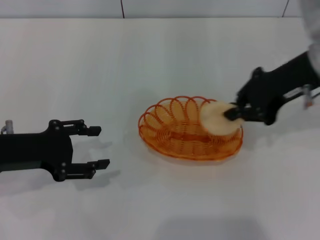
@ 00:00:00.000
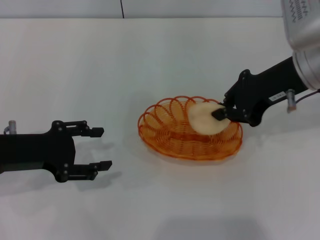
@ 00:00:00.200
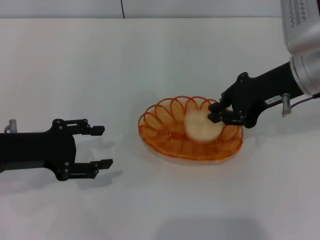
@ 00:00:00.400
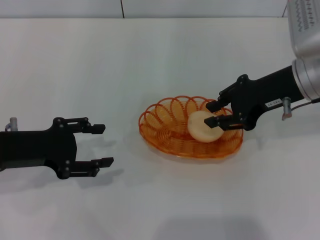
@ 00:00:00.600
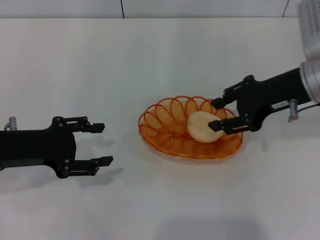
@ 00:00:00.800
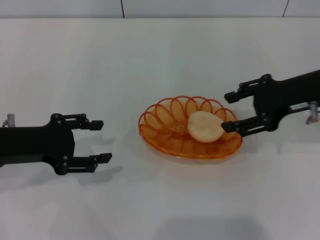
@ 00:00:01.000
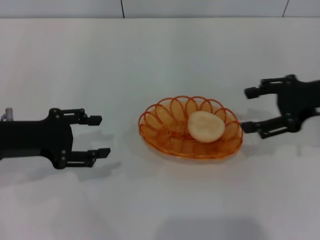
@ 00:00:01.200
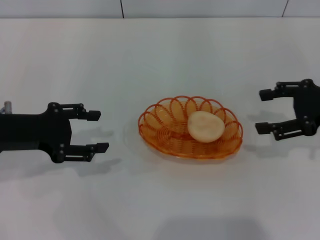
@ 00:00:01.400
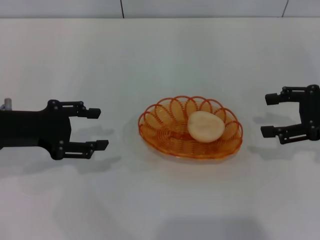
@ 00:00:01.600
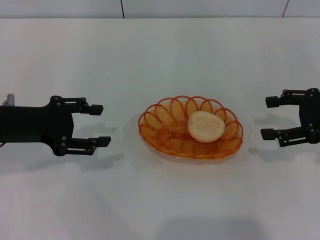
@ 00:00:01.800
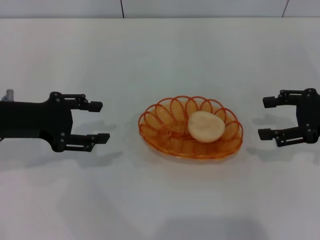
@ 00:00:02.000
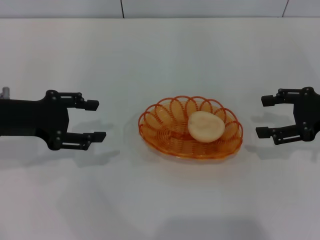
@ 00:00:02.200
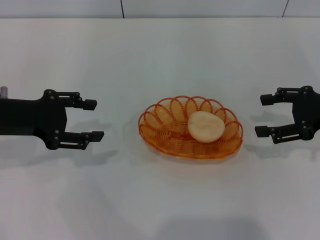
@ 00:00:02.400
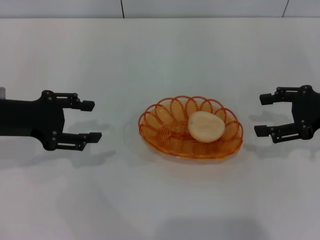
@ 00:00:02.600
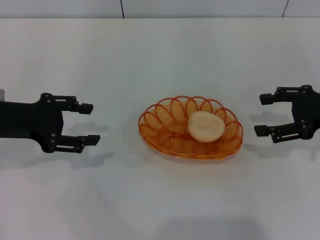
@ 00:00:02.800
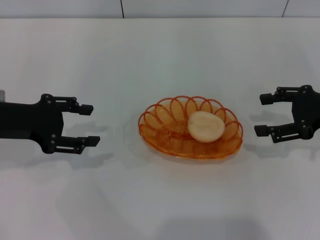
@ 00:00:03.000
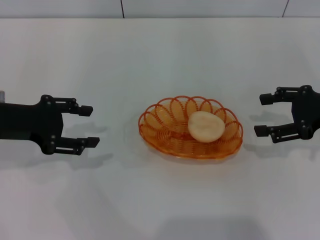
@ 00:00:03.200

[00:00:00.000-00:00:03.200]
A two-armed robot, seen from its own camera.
Step, 00:00:00.000 to 00:00:01.200: Place the egg yolk pastry into the basket with the right gripper.
00:00:00.000 to 00:00:01.600: The right gripper heads to the right and downward, covering roughly 15 cm, and opens.
00:00:01.600 to 00:00:03.200: The grippers move only a little.
